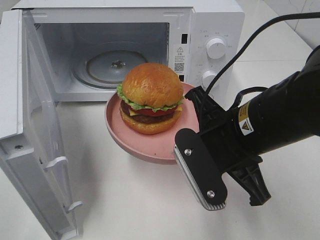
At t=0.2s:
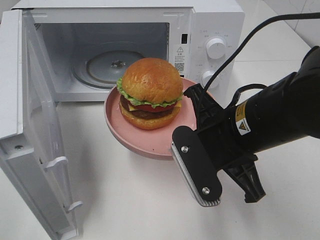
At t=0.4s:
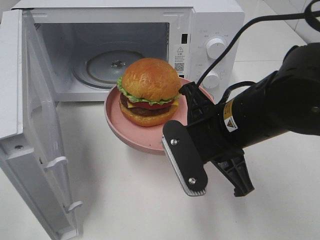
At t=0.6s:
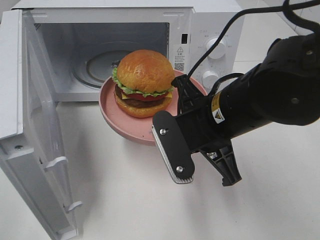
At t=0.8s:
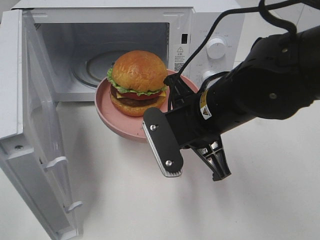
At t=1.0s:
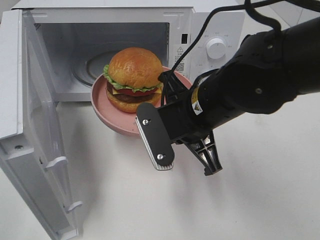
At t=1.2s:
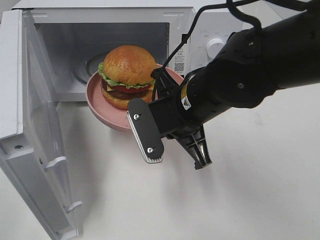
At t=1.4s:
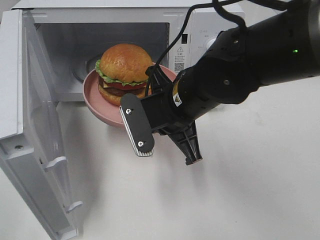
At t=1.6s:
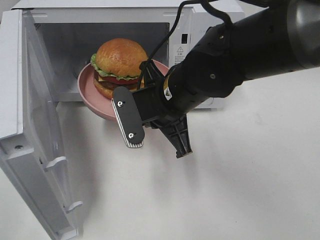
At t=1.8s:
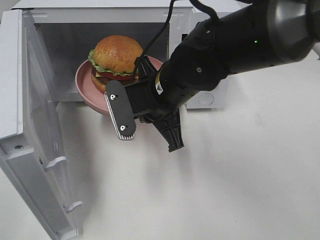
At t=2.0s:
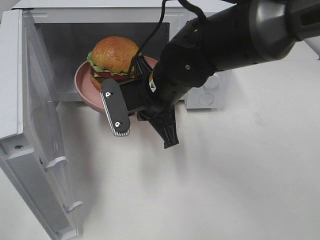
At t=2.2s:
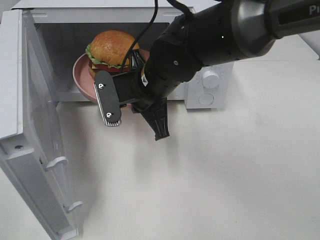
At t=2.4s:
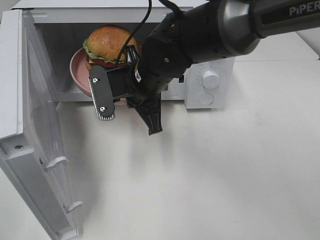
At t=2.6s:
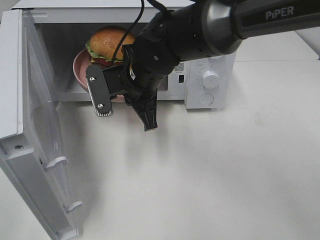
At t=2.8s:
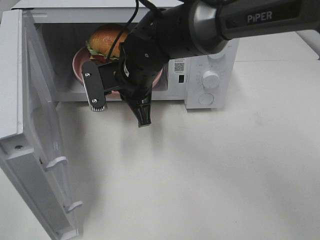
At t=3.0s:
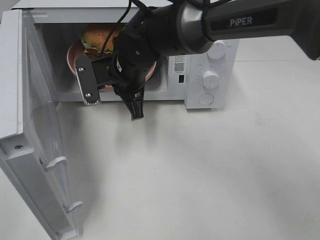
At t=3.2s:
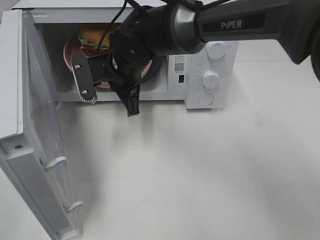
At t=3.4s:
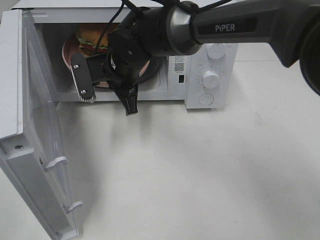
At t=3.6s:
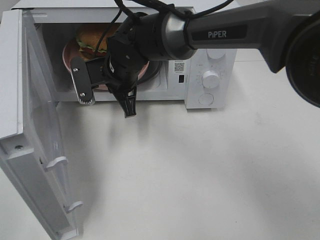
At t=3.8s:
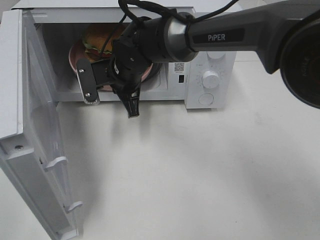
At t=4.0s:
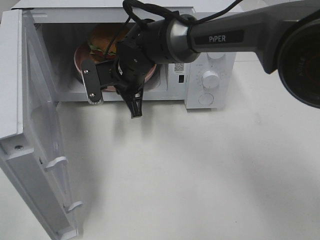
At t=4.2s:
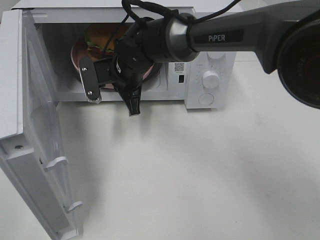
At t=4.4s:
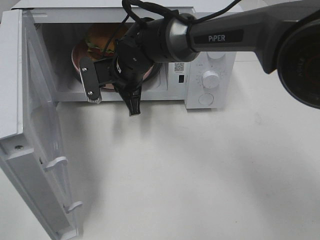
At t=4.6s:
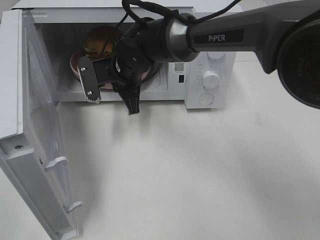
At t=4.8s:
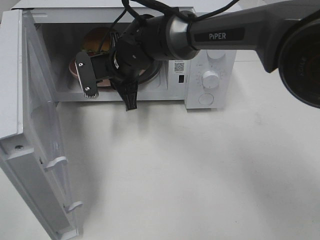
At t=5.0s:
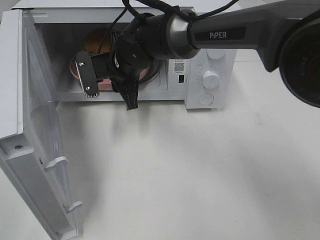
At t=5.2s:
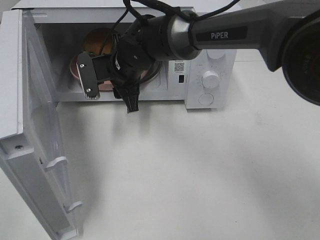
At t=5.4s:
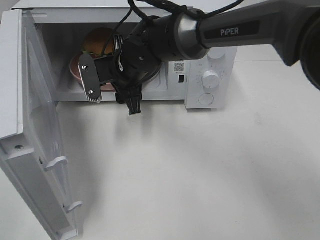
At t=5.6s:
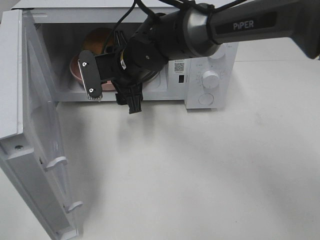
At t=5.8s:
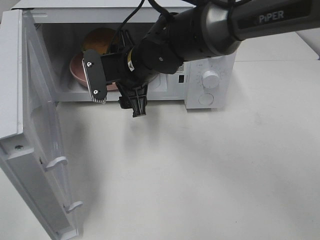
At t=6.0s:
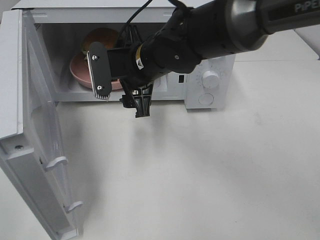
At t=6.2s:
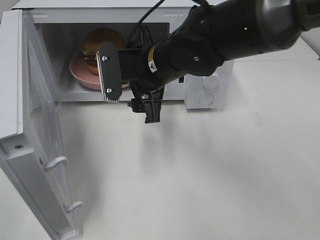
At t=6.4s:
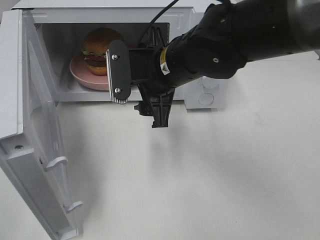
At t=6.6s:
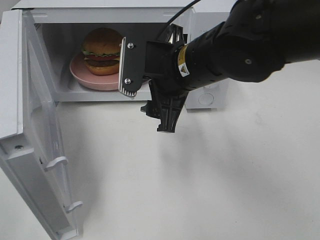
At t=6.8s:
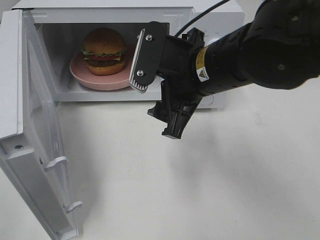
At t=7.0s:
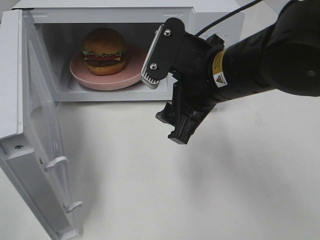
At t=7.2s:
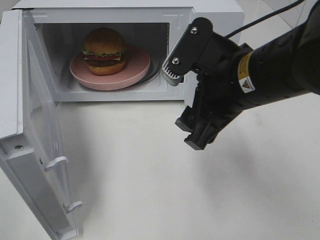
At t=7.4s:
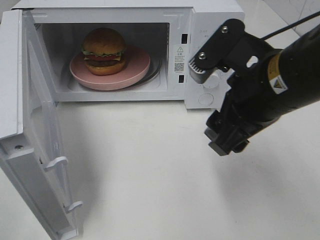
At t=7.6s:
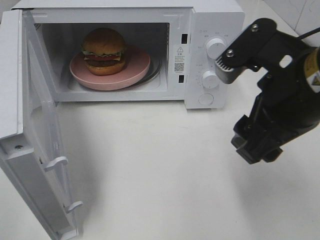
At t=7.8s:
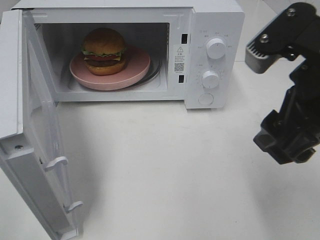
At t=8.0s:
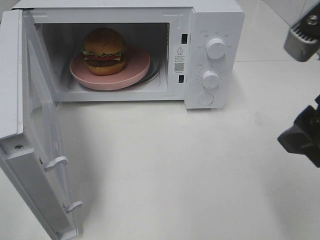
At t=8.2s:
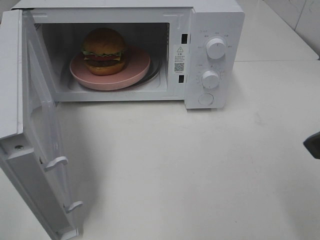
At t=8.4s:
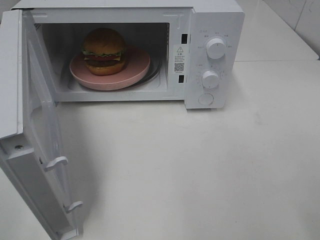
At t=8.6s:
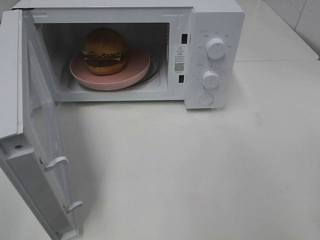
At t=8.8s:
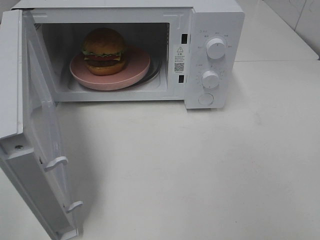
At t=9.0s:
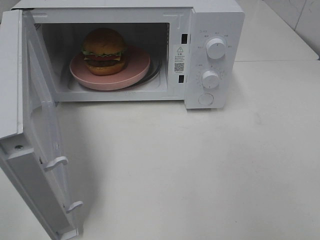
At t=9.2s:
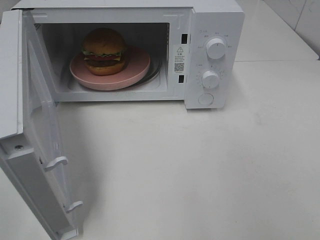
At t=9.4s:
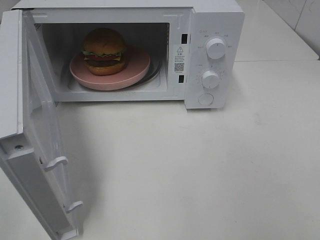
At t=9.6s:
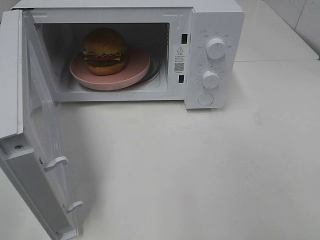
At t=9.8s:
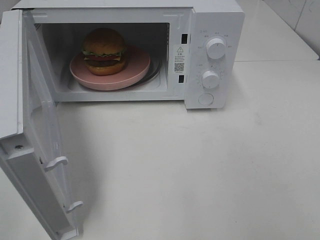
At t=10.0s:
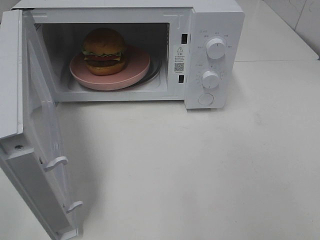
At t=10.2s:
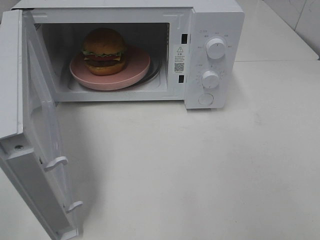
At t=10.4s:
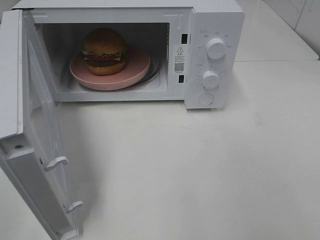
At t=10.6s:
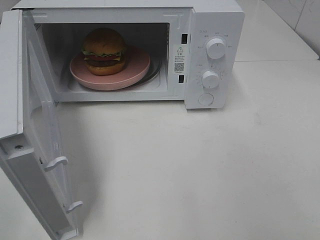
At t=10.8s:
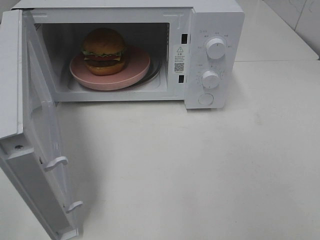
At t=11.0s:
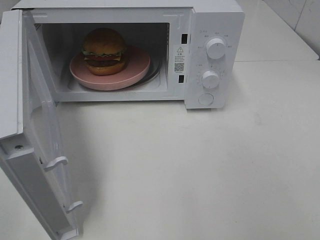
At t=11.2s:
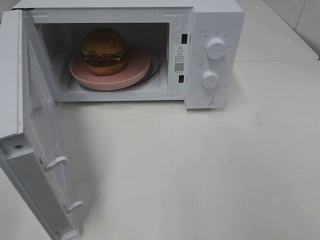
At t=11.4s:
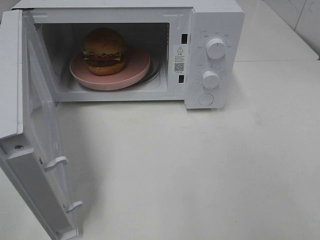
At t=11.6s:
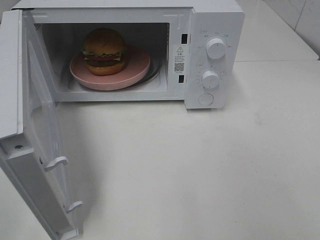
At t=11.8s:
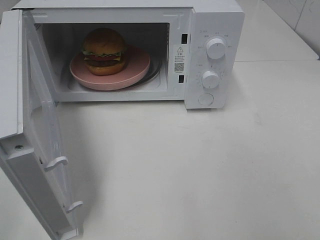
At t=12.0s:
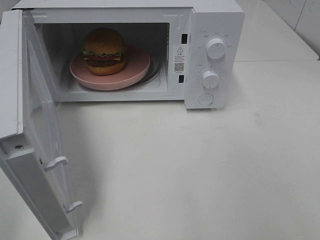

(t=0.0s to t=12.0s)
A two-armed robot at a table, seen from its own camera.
Task of the whole recording: Heat the burger.
Step, t=0.0s - t=5.0s: Right hand: place the plate in the microwave.
t=0.0s - t=1.6s: The right gripper travels forward and to the left by roughly 10 cm.
t=1.6s - t=3.0s: The right gripper travels forward and to the left by some 10 cm.
t=3.0s - t=4.4s: The grippers move only a little.
t=4.4s - t=6.0s: The right gripper moves backward, about 5 cm, and opens its fingers.
t=6.0s - t=7.6s: The right gripper moves to the right, backward and upward, approximately 25 cm.
t=7.6s - t=9.0s: The right gripper shifts some 20 cm backward and to the right.

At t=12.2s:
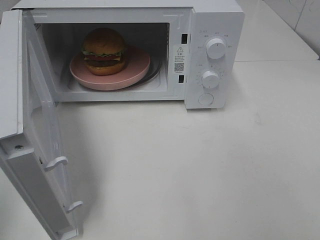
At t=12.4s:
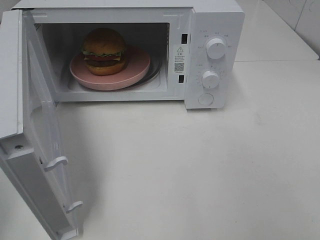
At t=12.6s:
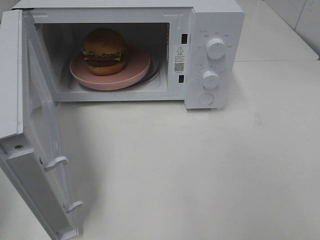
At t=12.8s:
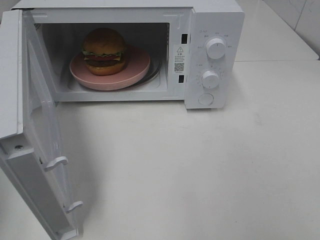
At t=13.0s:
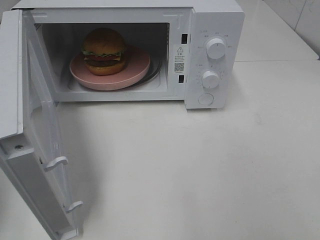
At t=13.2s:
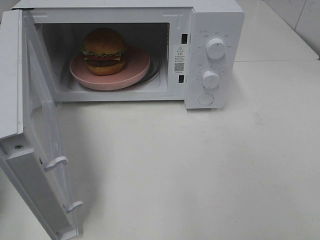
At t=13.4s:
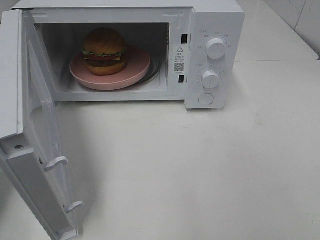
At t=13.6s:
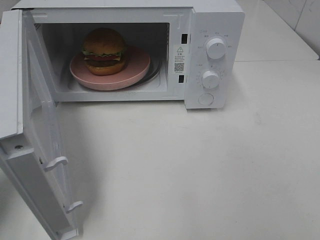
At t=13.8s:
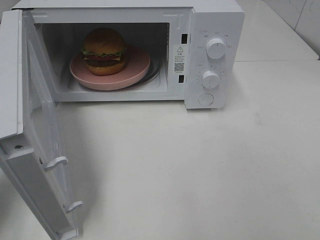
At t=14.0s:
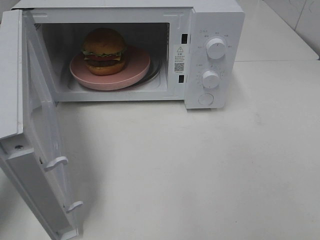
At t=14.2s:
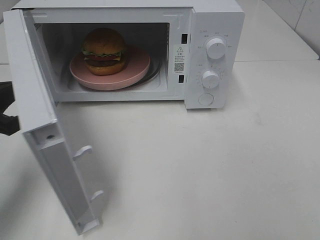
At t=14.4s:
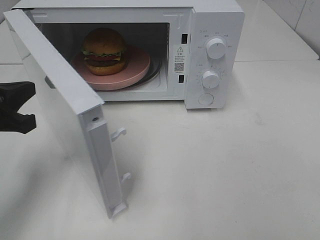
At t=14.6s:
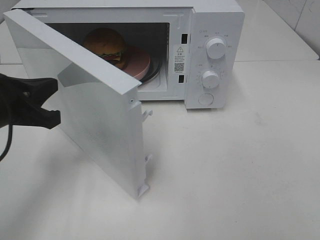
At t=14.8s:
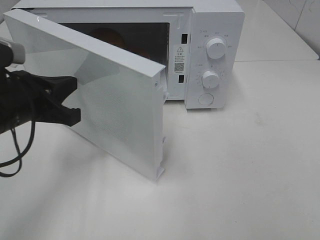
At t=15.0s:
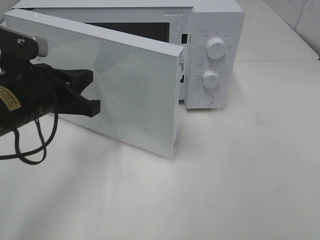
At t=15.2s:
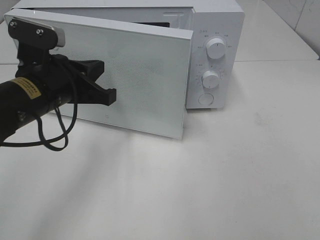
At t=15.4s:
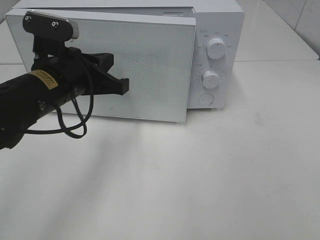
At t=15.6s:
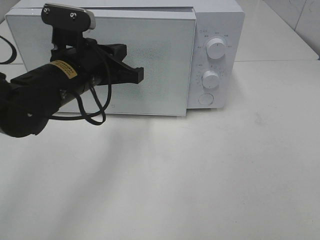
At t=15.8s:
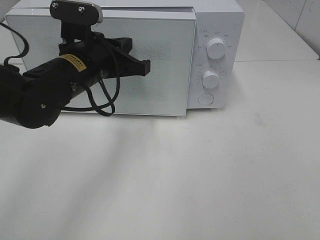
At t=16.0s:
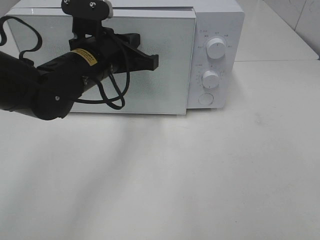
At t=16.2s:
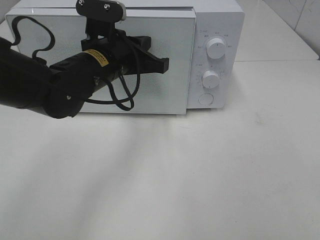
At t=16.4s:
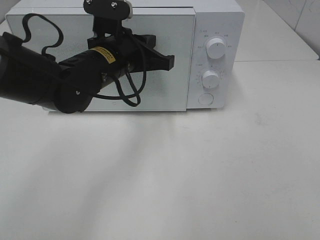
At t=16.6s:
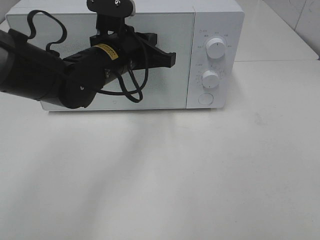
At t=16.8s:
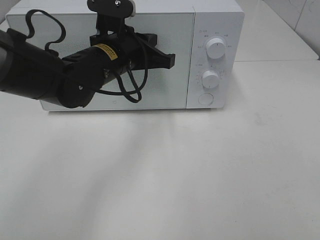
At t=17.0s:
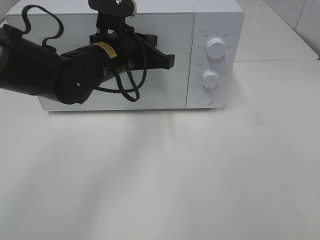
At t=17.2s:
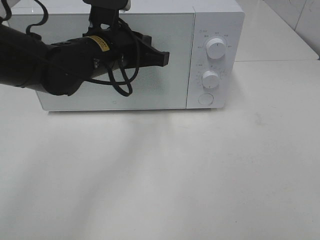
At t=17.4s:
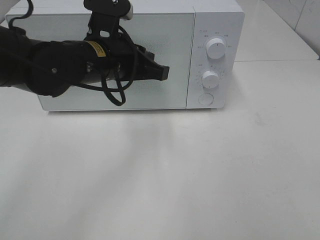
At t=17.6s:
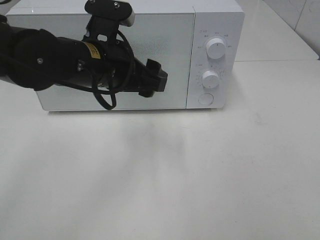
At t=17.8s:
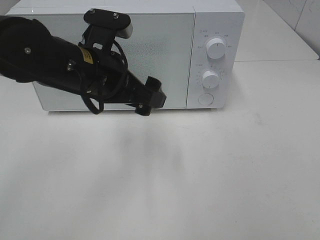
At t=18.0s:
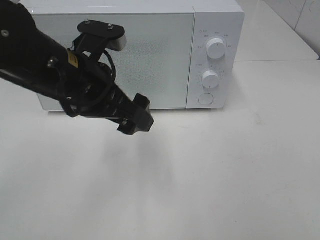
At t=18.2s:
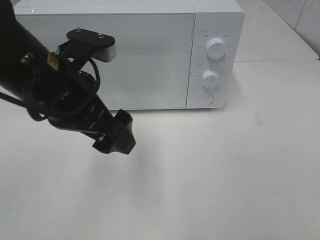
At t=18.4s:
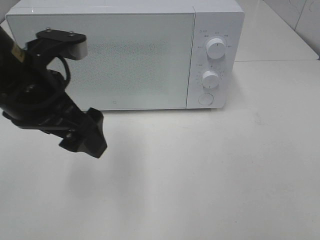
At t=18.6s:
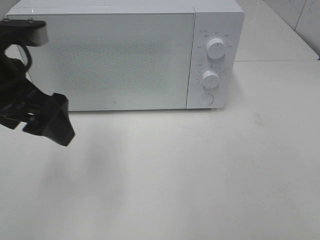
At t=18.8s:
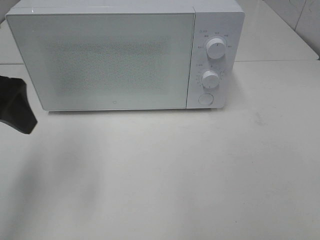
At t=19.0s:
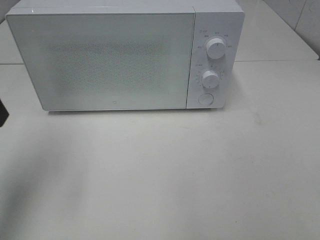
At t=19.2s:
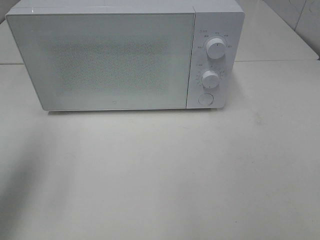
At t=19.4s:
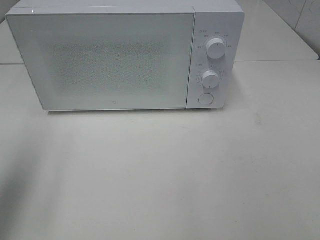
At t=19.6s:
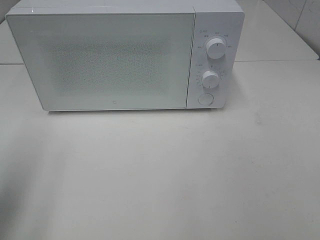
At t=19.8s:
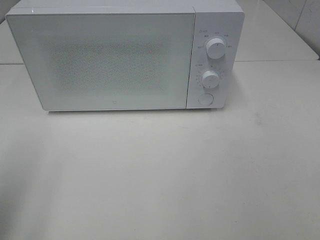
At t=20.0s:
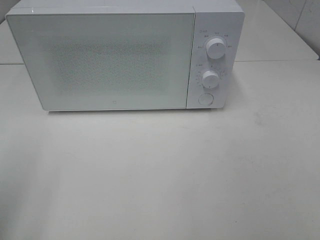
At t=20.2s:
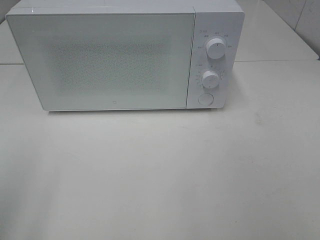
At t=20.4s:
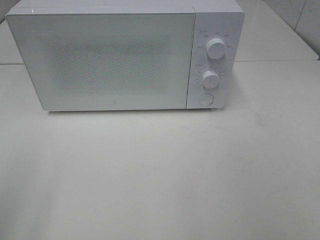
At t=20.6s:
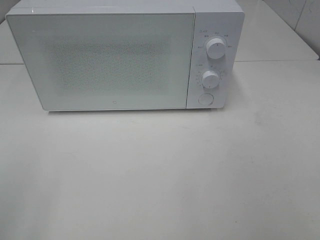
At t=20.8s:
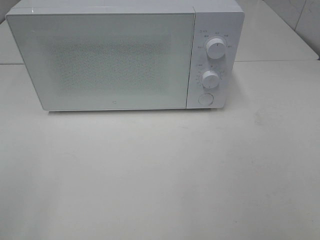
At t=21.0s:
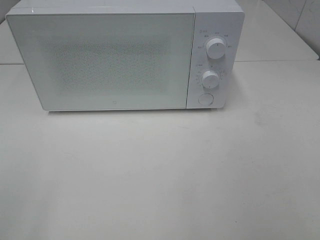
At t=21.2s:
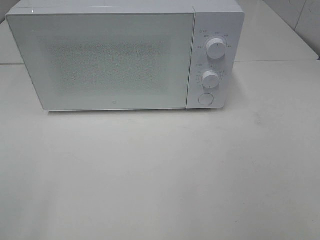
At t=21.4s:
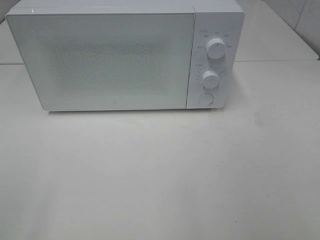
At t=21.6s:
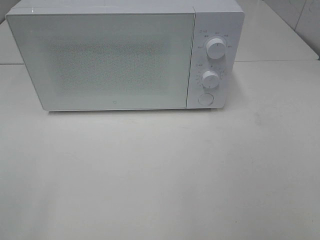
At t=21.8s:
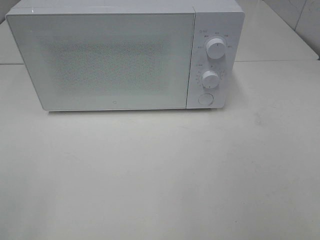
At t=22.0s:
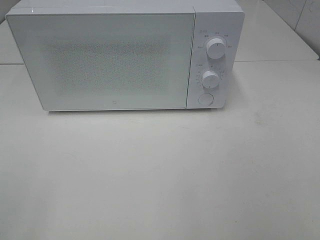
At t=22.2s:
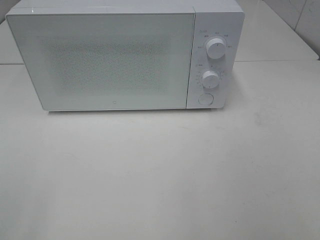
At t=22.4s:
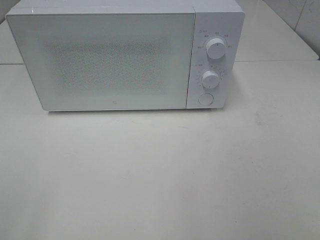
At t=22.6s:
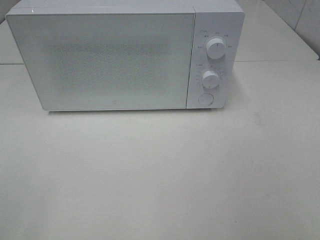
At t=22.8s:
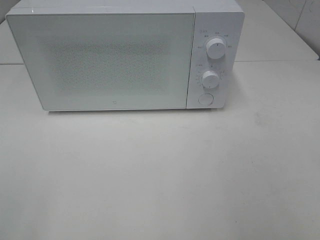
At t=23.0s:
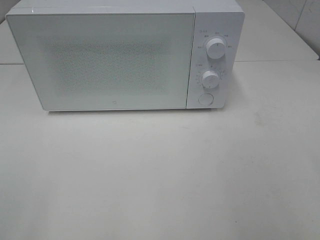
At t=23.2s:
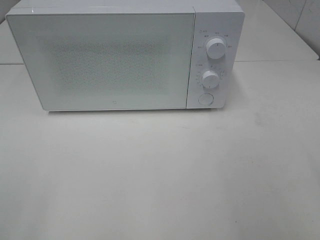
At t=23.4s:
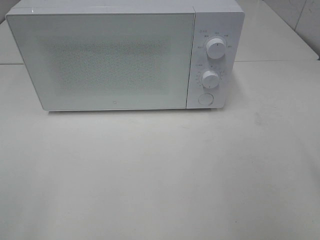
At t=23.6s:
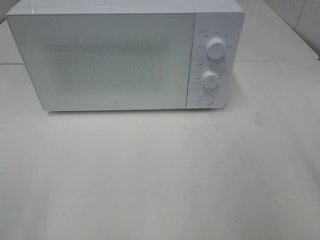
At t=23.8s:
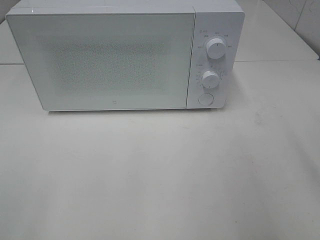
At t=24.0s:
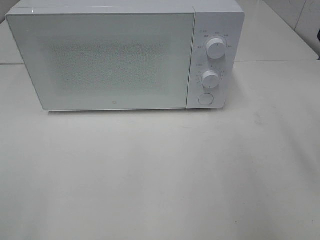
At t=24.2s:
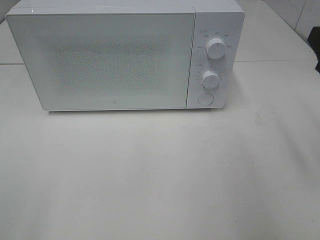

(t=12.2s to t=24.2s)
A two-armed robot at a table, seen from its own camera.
Task of the whole recording: Heat the burger.
Step, t=12.2s - t=17.2s: Left hand: close the microwave door.
t=12.2s - t=13.8s: The left gripper travels forward and downward by approximately 20 cm.
t=13.8s - t=15.2s: The left gripper shifts some 15 cm to the right and forward.
t=15.2s - t=16.6s: The left gripper heads to the right and forward, covering approximately 10 cm.
t=16.6s - t=18.2s: The left gripper moves backward, some 10 cm, and opens its fingers.
t=18.2s - t=19.8s: The left gripper is displaced to the left and backward by about 20 cm.
t=19.8s - t=21.2s: The left gripper travels backward by approximately 10 cm.
